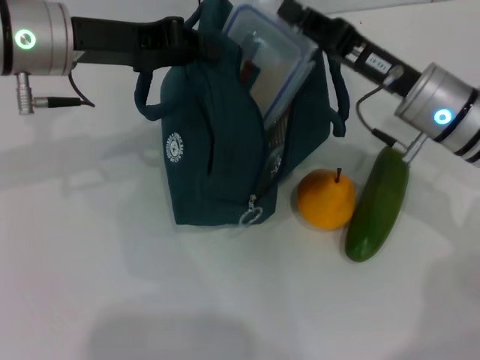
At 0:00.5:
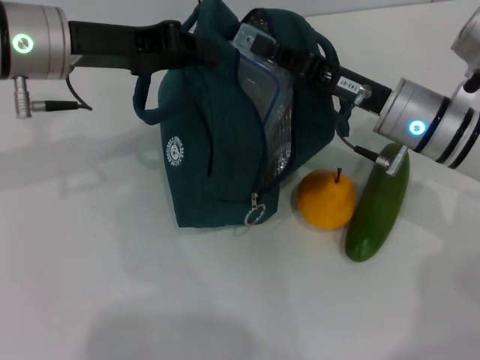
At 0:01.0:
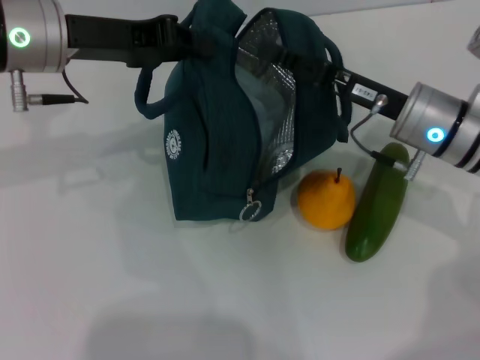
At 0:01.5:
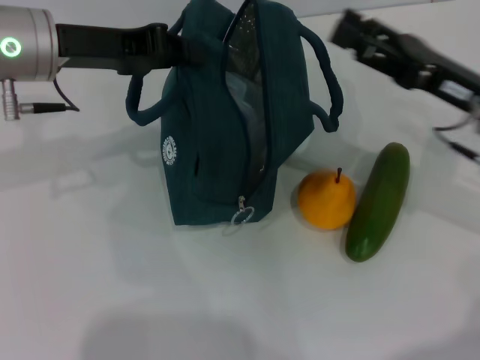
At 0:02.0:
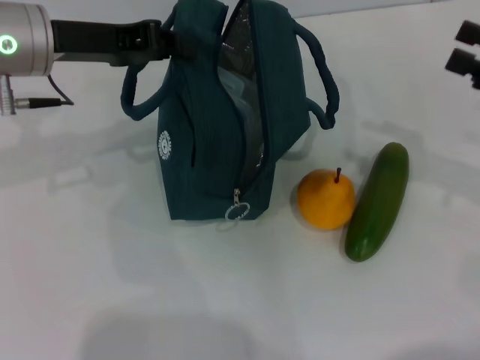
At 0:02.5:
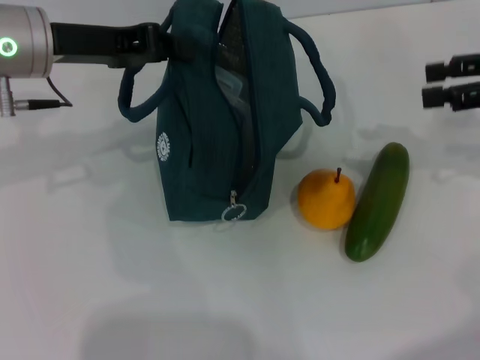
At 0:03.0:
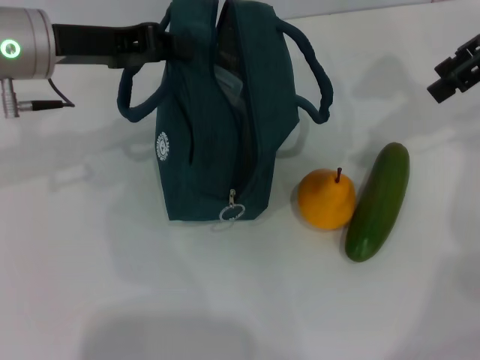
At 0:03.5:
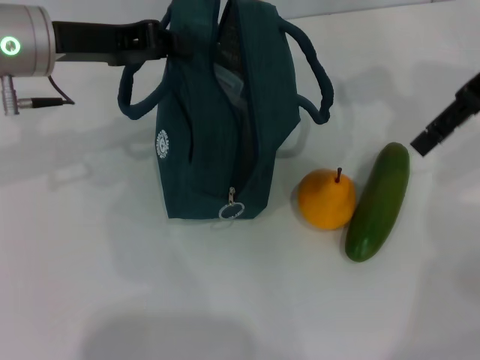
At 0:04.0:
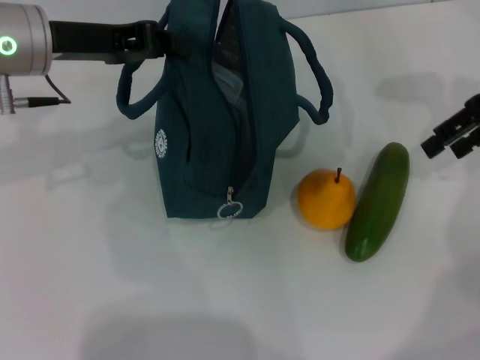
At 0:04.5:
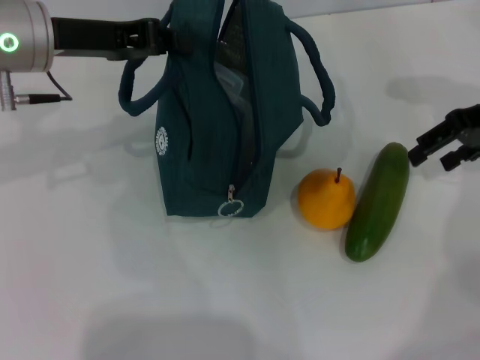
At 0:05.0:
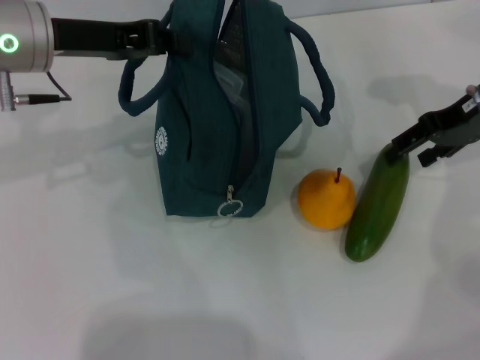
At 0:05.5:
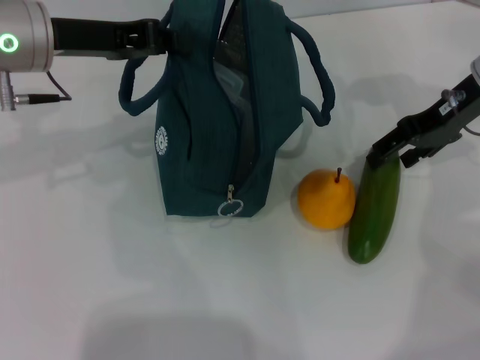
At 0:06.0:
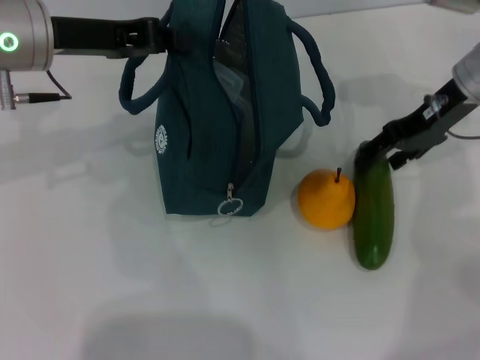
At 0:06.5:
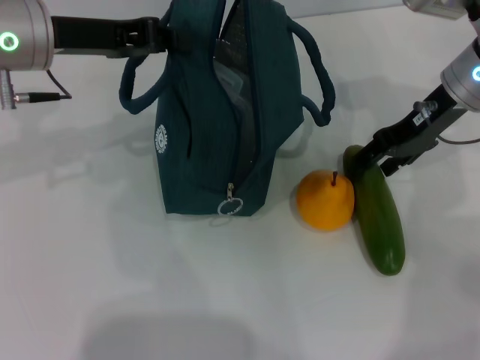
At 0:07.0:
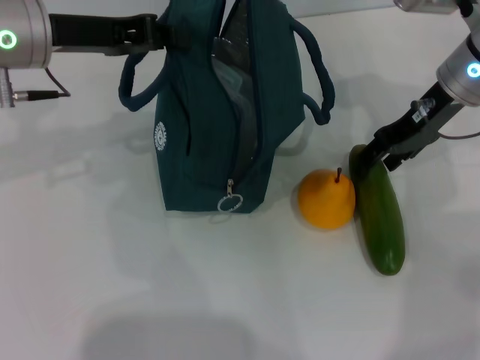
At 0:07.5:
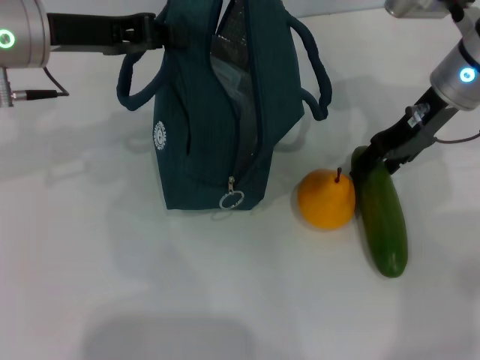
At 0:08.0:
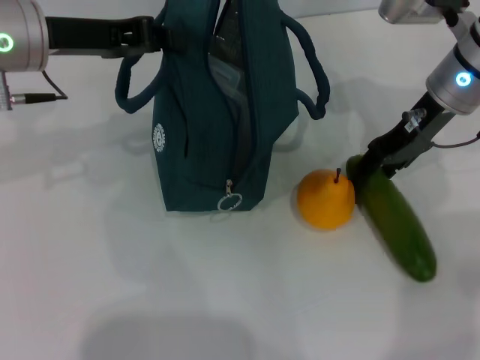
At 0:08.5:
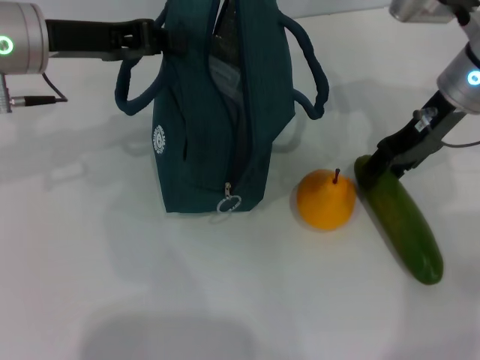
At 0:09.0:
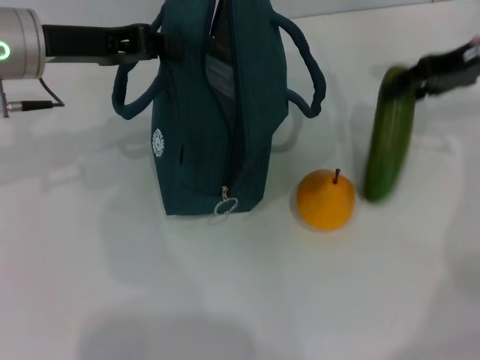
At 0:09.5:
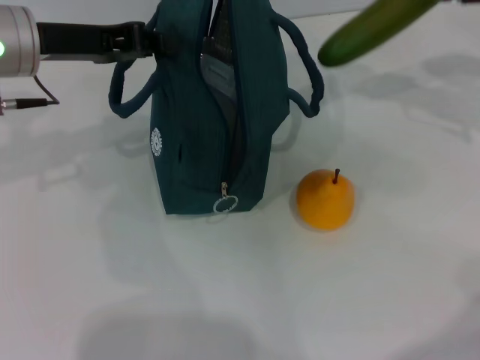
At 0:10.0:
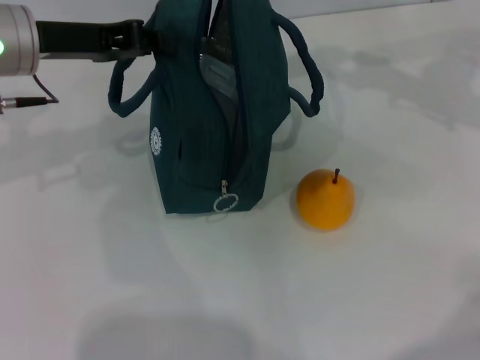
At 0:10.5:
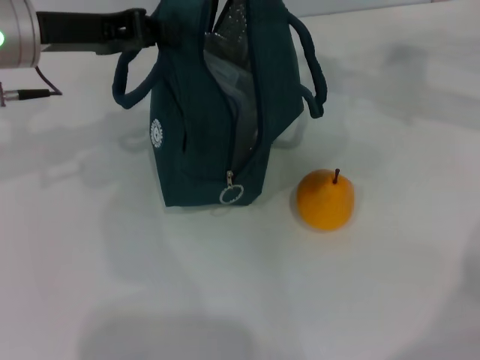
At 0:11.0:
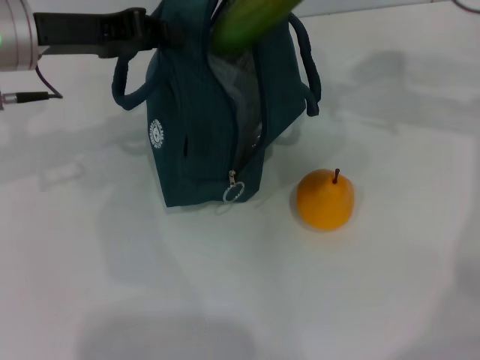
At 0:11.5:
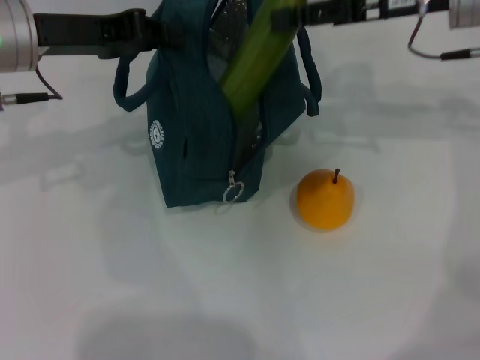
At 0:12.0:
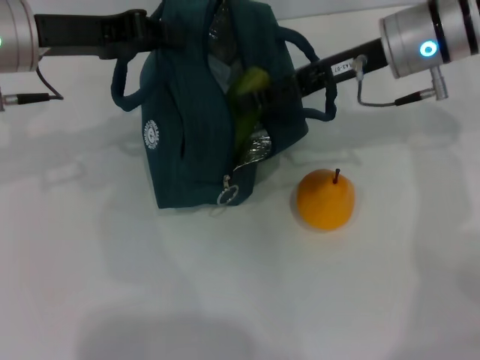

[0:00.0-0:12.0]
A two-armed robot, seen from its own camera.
Step, 0:01.5 to 0:08.0: Pick up the cucumber with your right hand.
0:00.0 to 0:02.0: The right gripper travels to the right and backward by about 15 cm, and opens its fingers.
0:02.0 to 0:04.0: The right gripper moves forward and upward, some 15 cm.
0:04.0 to 0:06.0: The right gripper travels to the left and downward by about 10 cm.
0:06.0 to 0:08.0: The grippers stay close to where they were, moving slightly.
0:08.0 to 0:10.0: The right gripper moves to the right and upward, approximately 15 cm.
0:10.0 to 0:12.0: The right gripper is displaced to the left and downward by approximately 20 cm.

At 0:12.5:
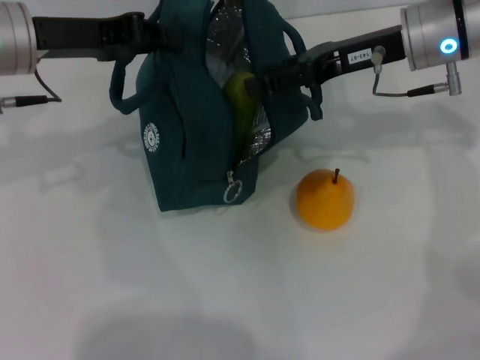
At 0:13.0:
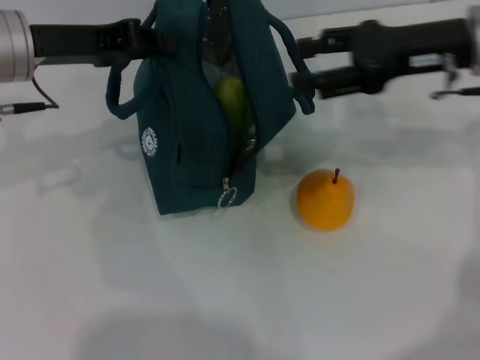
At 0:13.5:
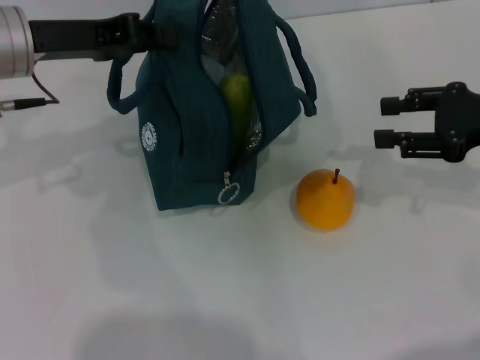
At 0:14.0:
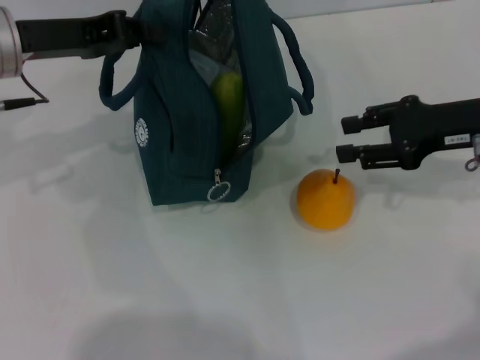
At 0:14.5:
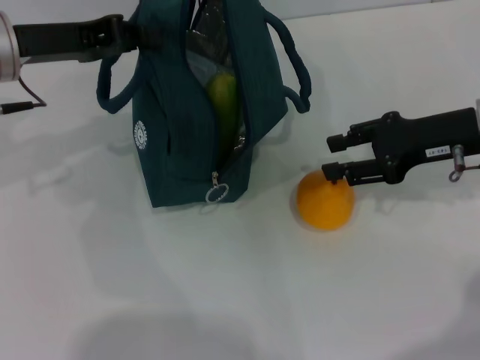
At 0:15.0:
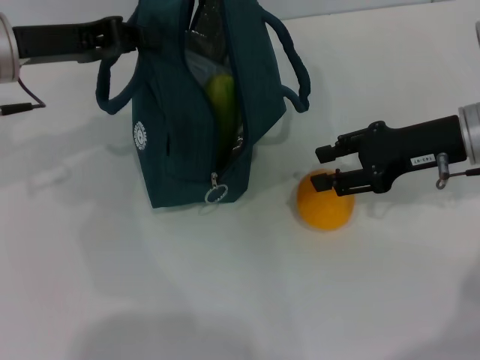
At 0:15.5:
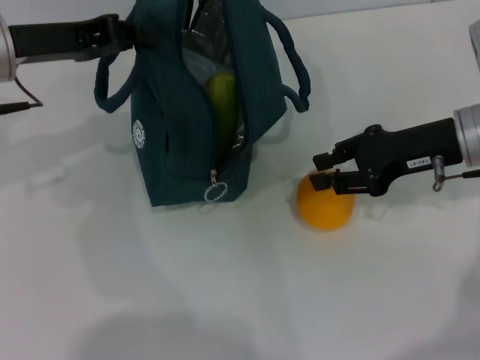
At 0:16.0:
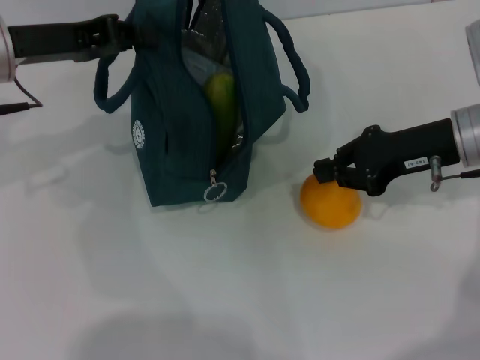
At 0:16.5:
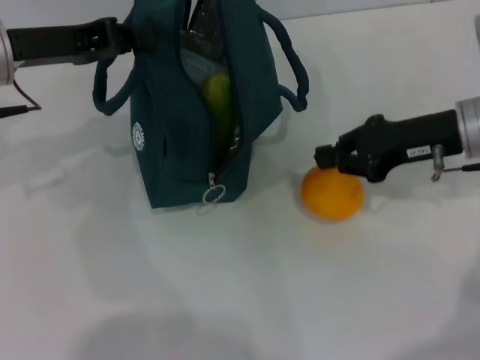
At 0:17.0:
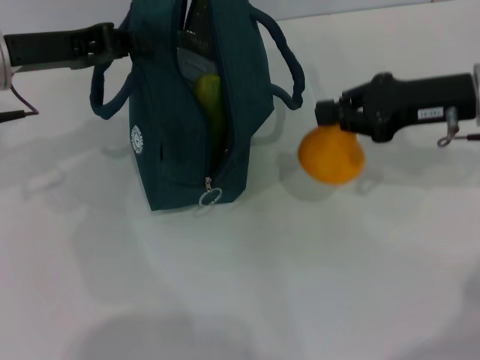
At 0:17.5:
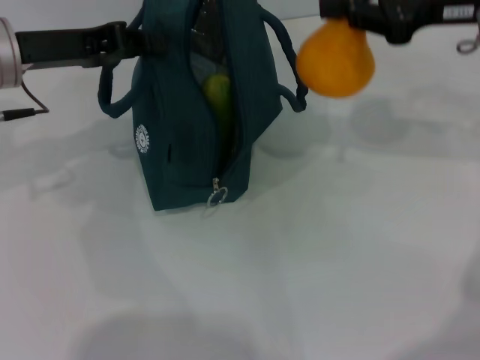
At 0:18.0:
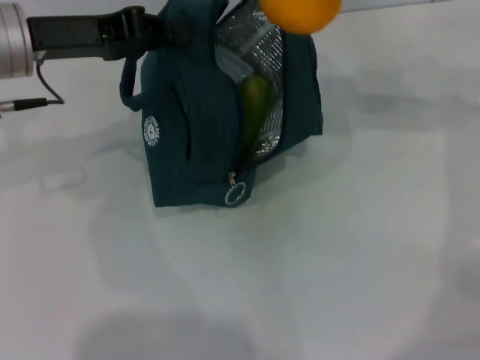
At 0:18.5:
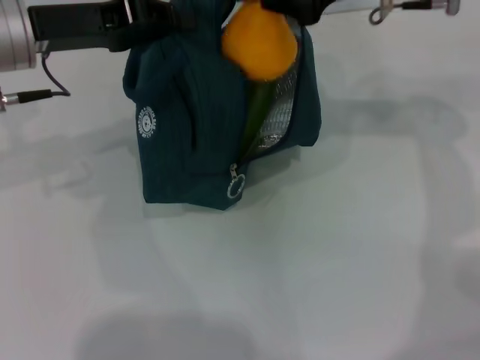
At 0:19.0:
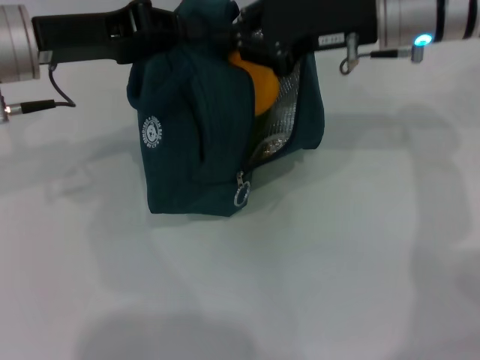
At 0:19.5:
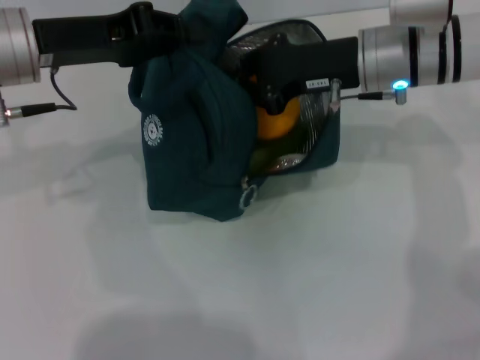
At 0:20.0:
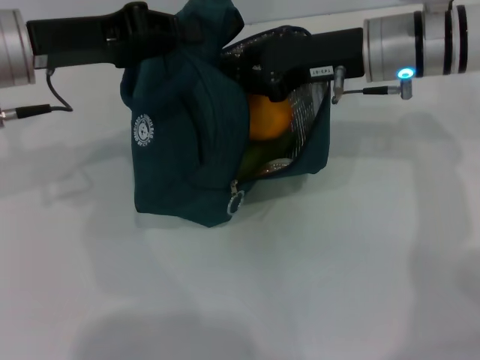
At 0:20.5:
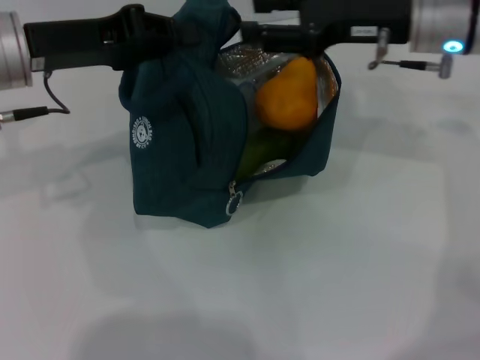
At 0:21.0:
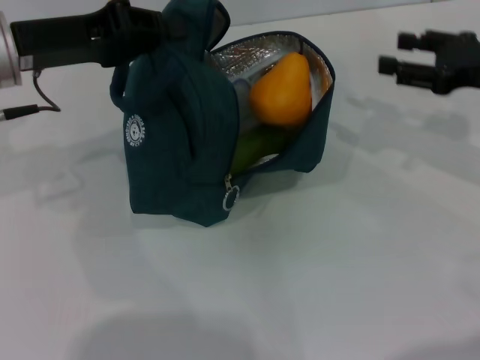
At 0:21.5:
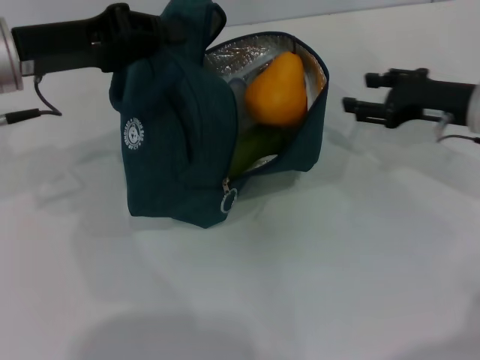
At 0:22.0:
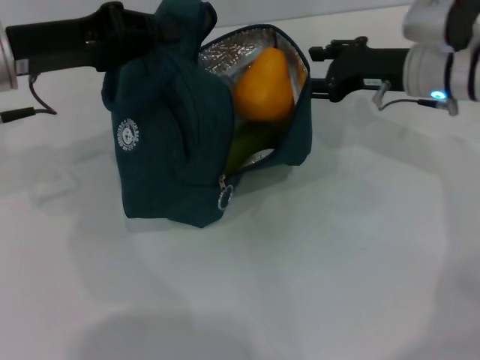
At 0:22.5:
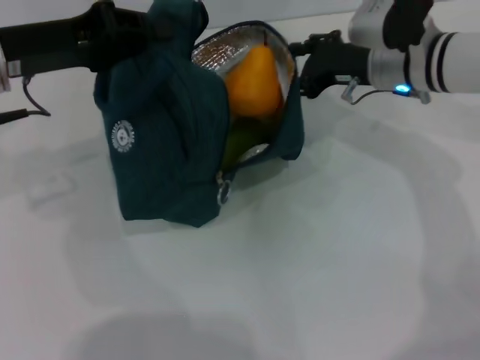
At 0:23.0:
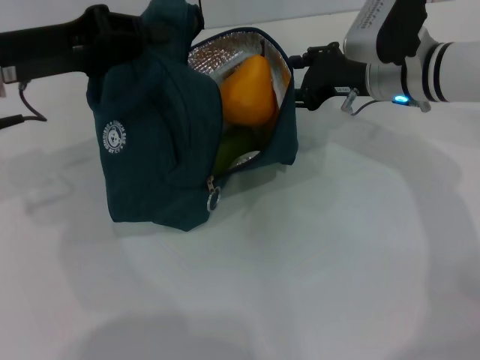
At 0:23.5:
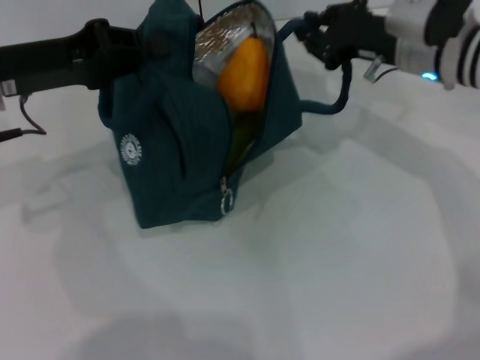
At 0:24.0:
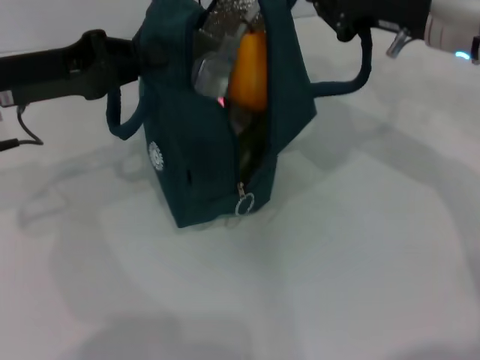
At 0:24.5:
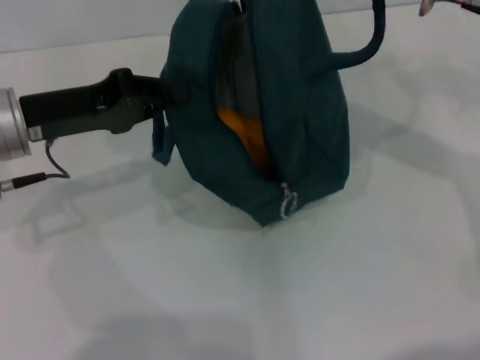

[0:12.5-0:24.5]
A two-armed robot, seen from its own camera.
Step, 0:13.0 to 0:16.0: Grab the pear with your right hand.
Step, 0:16.5 to 0:20.0: Place the pear into the lunch bag with your right hand.
0:12.5 to 0:14.5: The right gripper heads to the right, backward and downward, covering roughly 10 cm.
0:14.5 to 0:16.5: The right gripper closes.
0:16.5 to 0:18.5: The right gripper shifts roughly 15 cm upward, to the left and forward.
0:18.5 to 0:20.5: The right gripper travels downward by approximately 5 cm, and opens up.
0:20.5 to 0:22.5: The right gripper heads downward, covering approximately 5 cm, and reaches approximately 10 cm to the right, then returns.
0:22.5 to 0:24.5: The right gripper heads upward and backward, covering about 15 cm, and closes up. Meanwhile the left gripper moves approximately 5 cm.

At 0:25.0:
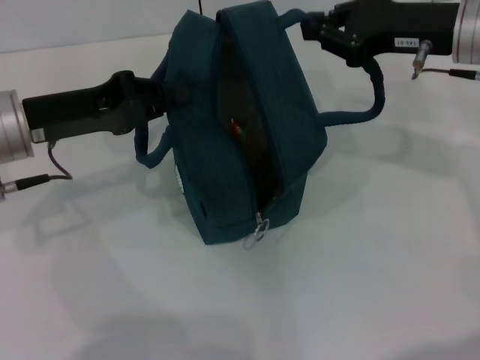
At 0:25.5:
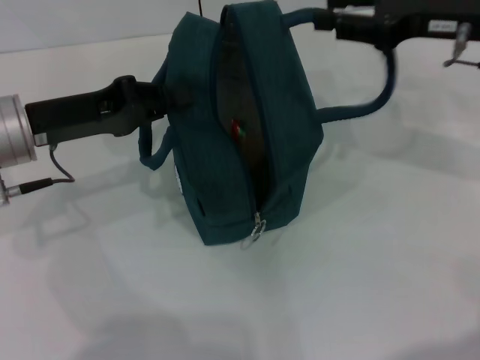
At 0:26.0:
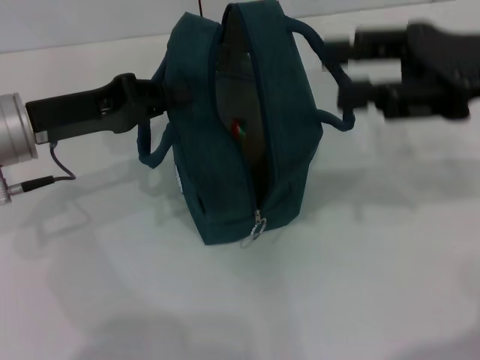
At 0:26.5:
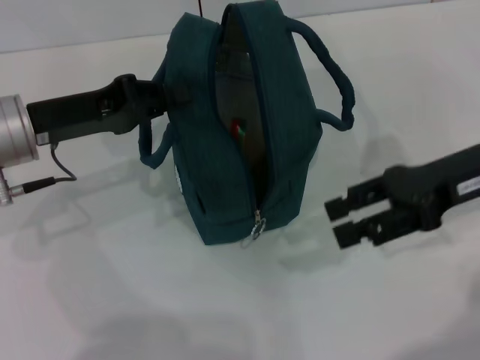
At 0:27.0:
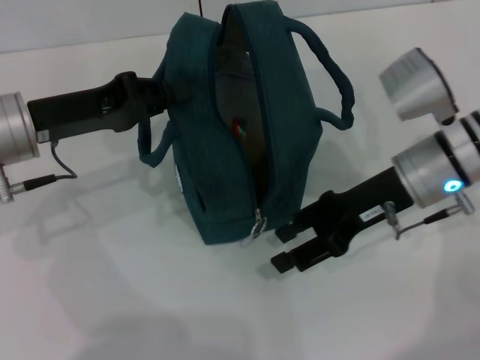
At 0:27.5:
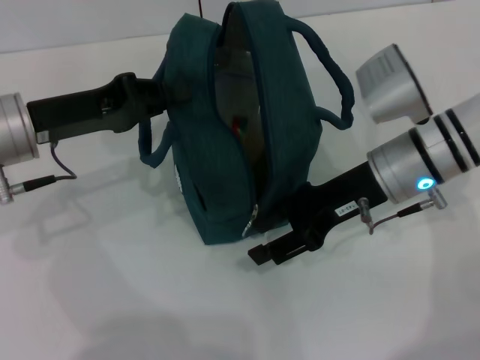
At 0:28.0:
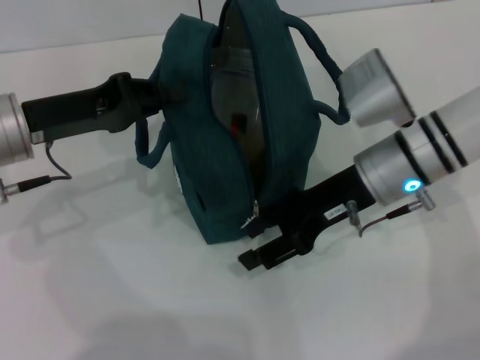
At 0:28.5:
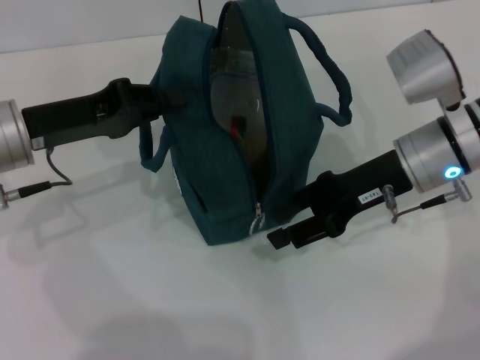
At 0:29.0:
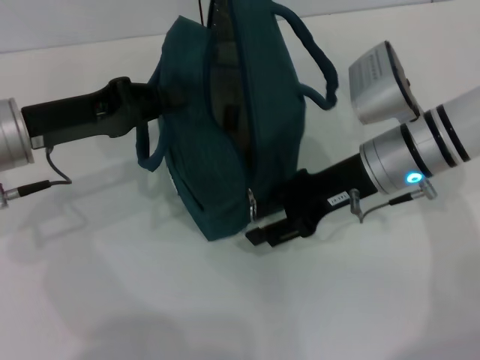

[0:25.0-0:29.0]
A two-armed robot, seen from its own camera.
0:25.0 to 0:27.0: The right gripper travels downward by about 10 cm, and opens its fingers.
0:27.0 to 0:29.0: The grippers make only small movements.
